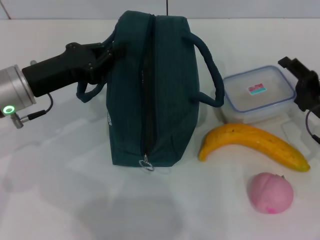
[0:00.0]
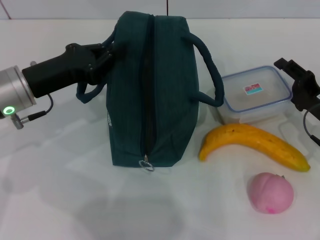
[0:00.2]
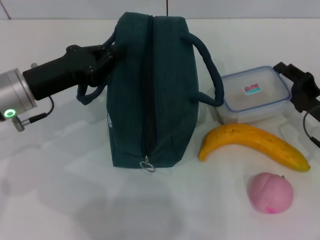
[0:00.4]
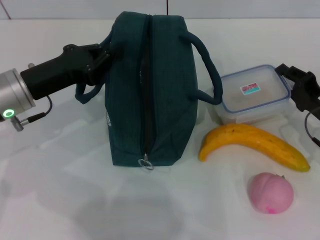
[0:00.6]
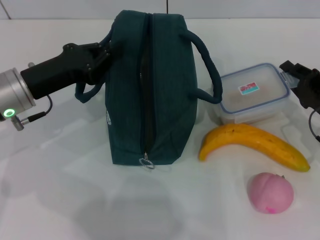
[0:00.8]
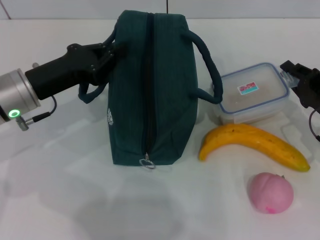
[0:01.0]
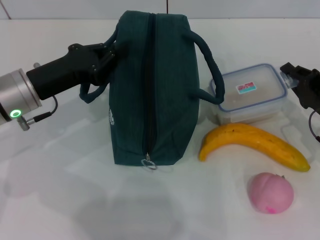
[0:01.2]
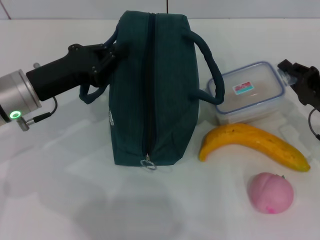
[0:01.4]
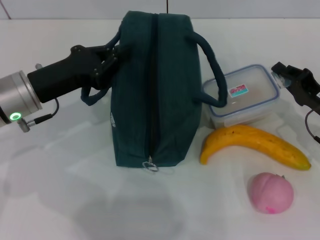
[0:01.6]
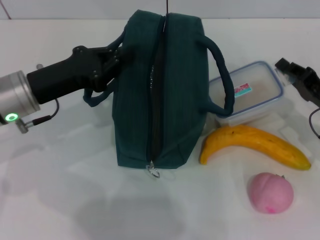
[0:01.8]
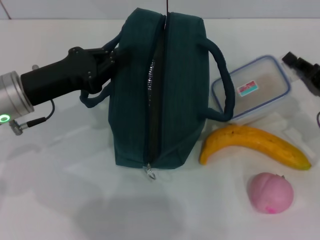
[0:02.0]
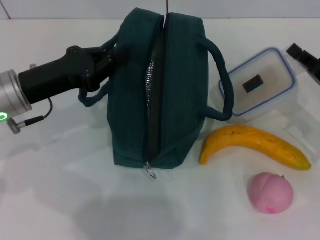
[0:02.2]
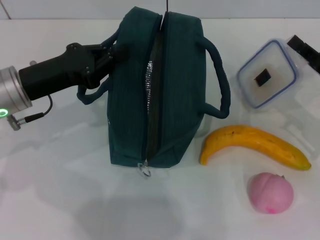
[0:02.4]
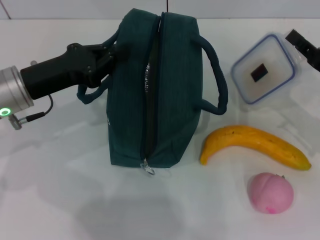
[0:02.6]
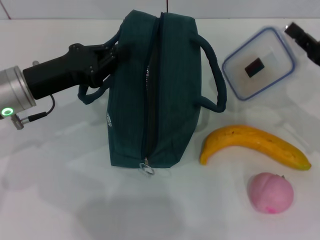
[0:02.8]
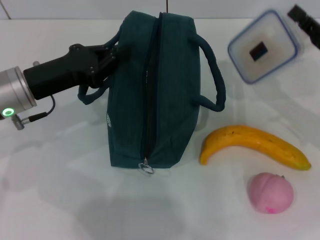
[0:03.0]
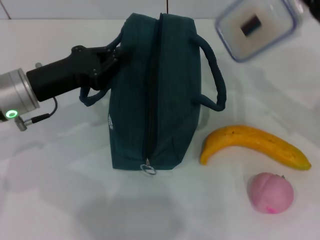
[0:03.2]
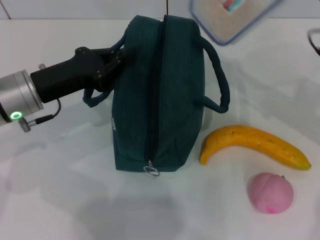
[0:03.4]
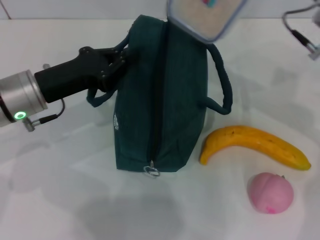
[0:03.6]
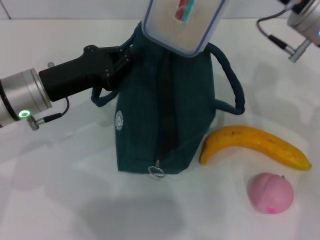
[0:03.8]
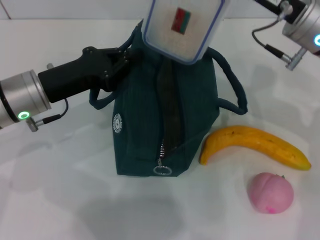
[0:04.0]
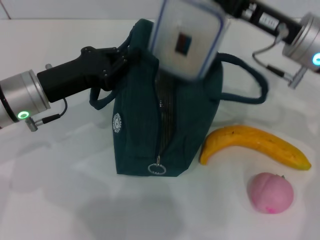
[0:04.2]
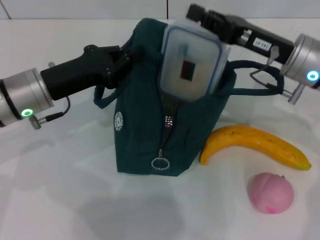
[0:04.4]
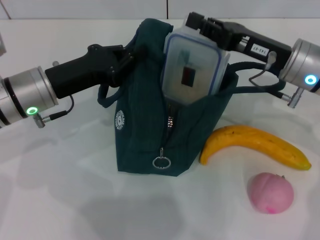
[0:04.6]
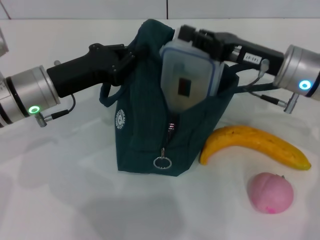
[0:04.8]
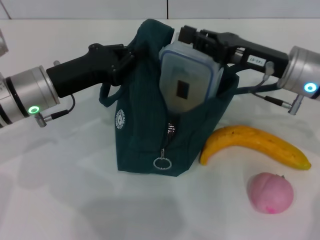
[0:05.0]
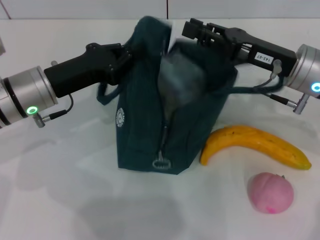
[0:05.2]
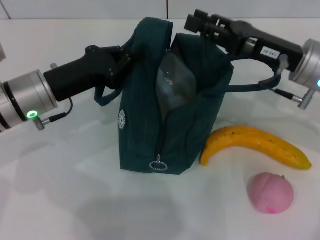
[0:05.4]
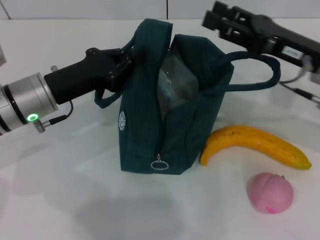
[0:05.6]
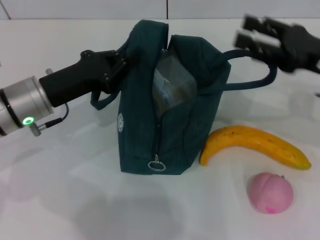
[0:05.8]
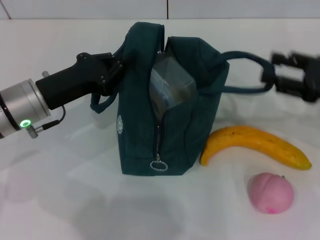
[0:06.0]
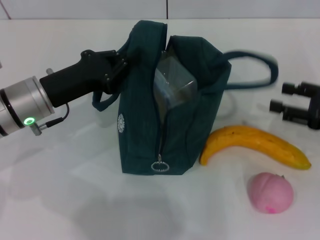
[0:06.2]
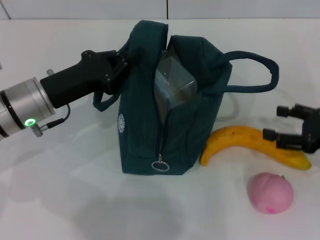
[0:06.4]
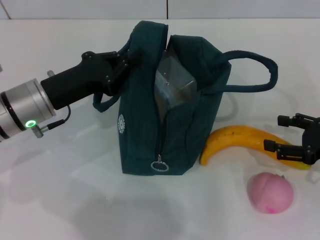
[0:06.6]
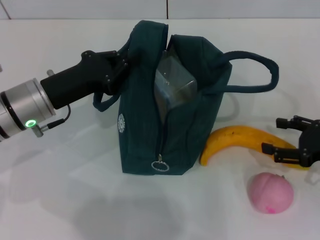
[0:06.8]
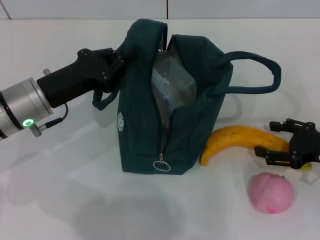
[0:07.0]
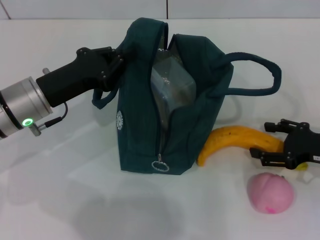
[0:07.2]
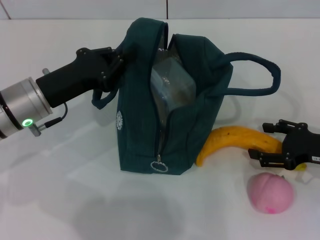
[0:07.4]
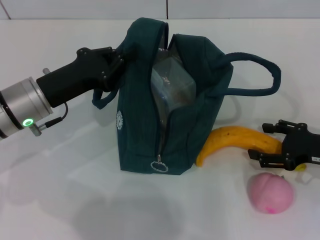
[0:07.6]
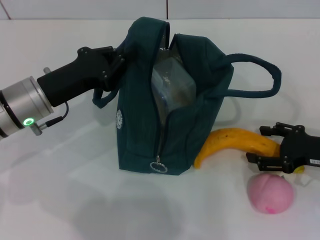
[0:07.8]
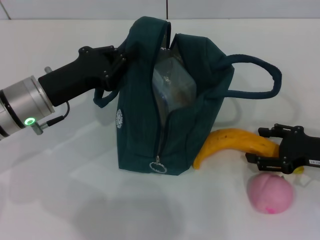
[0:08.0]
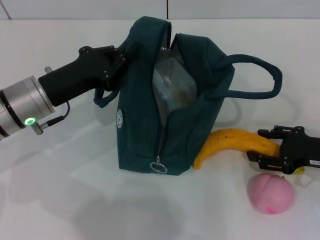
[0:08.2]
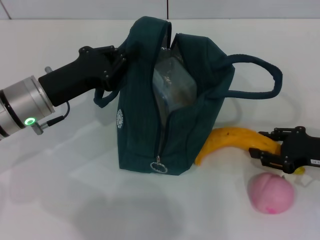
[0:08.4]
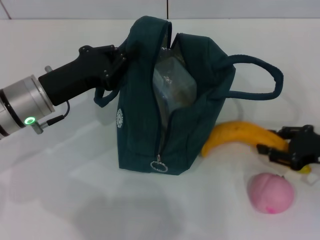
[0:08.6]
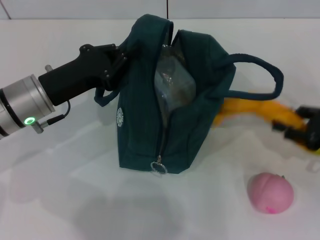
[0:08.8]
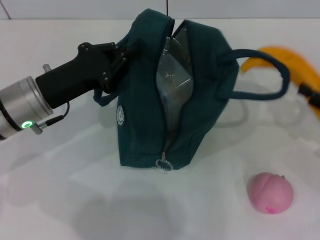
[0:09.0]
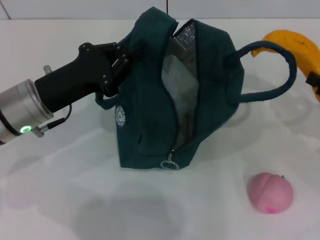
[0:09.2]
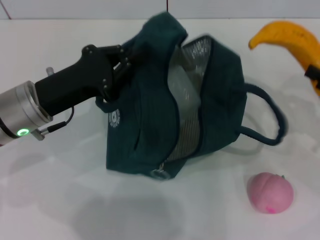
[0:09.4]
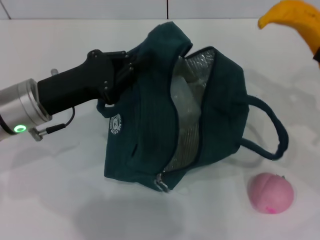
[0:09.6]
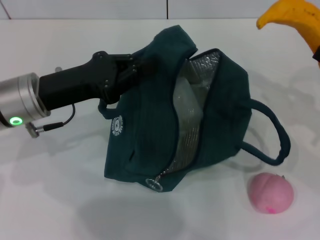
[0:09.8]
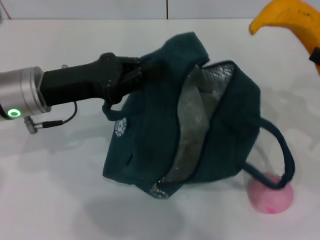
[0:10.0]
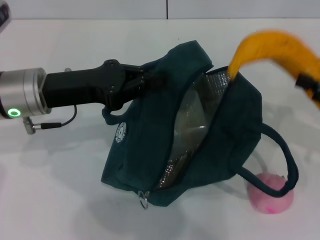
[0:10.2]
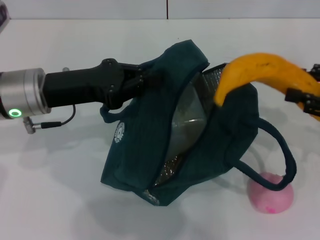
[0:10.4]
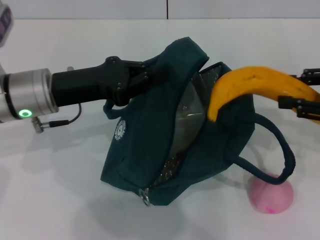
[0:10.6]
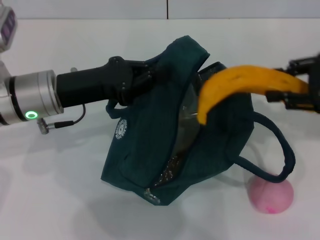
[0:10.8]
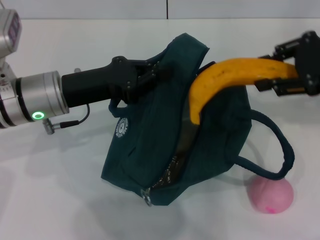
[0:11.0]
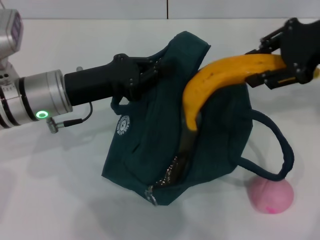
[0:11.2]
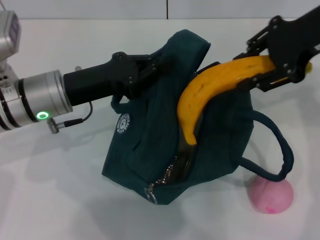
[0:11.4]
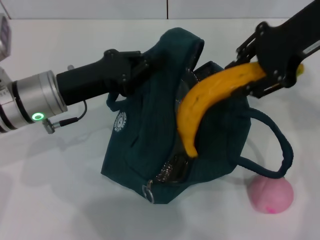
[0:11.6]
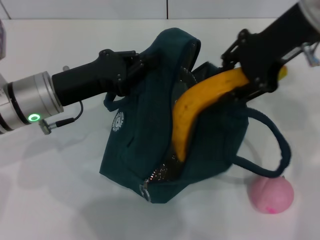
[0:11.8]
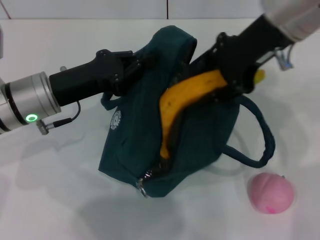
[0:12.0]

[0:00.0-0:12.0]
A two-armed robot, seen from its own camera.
Step, 0:00.0 to 0:02.0: Pick up the lunch box with your right hand.
Step, 0:02.2 to 0:05.2: Place the lunch box into the lunch bag with your right hand.
Step, 0:05.4 to 0:08.4: Take the banana with your right hand.
0:00.0 to 0:01.6: The right gripper closes up.
0:01.6 to 0:03.0: The right gripper goes roughly 5 cm upward.
0:03.0 to 0:04.4: The right gripper goes some 10 cm to the left.
0:04.4 to 0:06.0: The right gripper goes approximately 10 cm to the right, and opens its fingers.
0:06.0 to 0:07.6: The right gripper goes roughly 10 cm downward.
0:07.6 to 0:09.0: The right gripper is displaced to the right by approximately 5 cm, and closes.
0:09.0 to 0:10.4: The right gripper is displaced upward by roughly 5 cm.
0:10.4 to 0:12.0: The right gripper goes approximately 25 cm to the left, upward and forward.

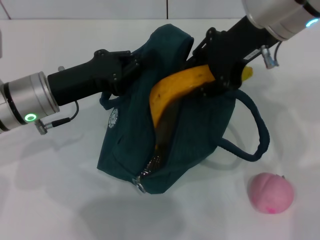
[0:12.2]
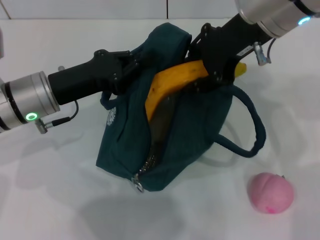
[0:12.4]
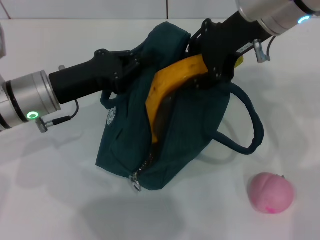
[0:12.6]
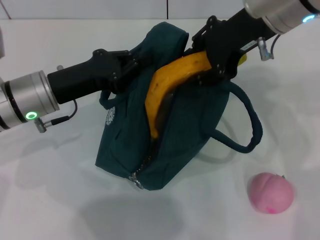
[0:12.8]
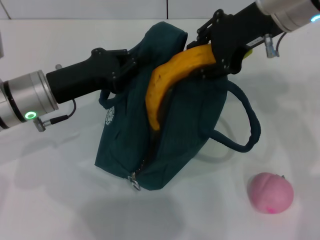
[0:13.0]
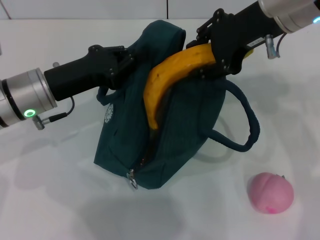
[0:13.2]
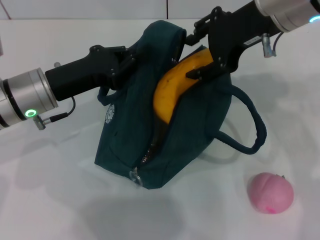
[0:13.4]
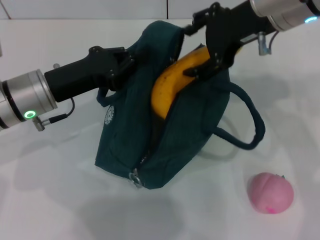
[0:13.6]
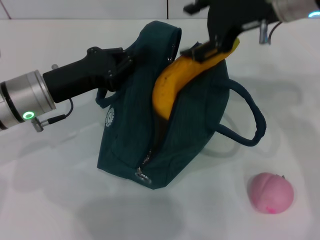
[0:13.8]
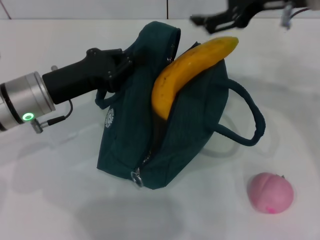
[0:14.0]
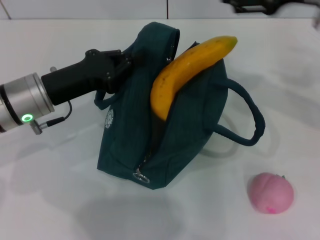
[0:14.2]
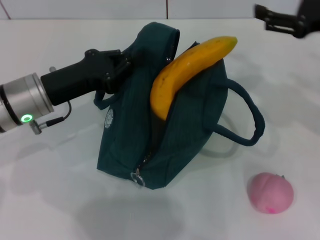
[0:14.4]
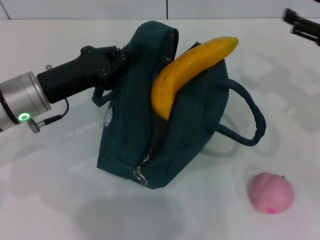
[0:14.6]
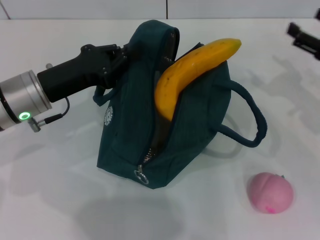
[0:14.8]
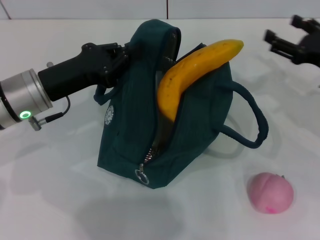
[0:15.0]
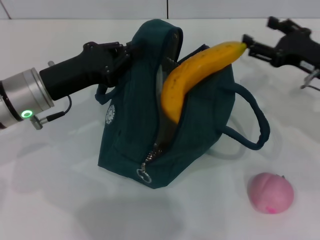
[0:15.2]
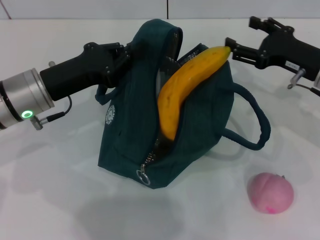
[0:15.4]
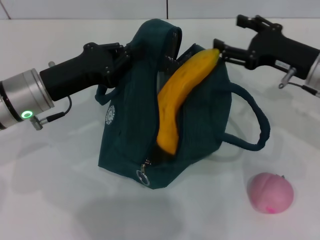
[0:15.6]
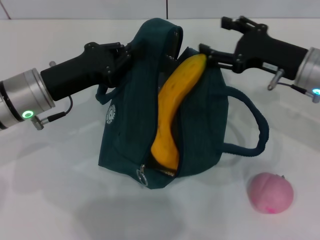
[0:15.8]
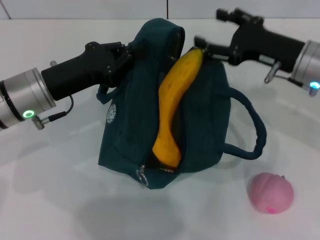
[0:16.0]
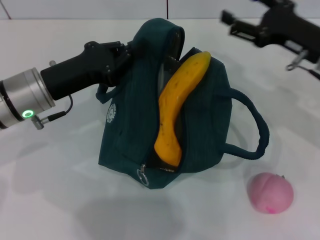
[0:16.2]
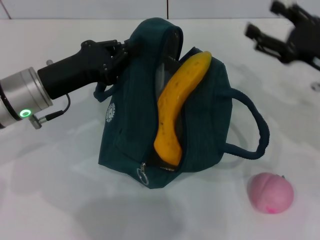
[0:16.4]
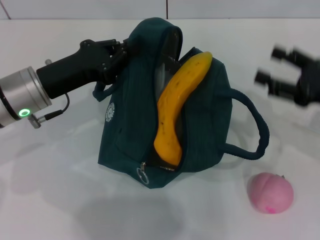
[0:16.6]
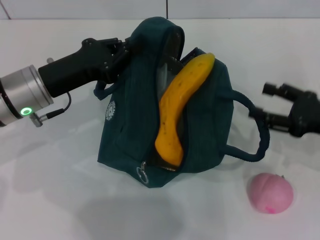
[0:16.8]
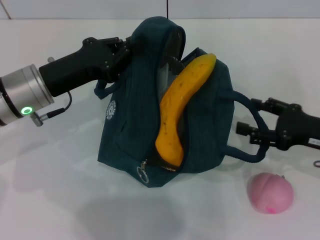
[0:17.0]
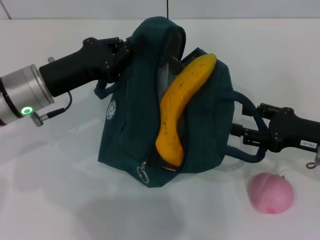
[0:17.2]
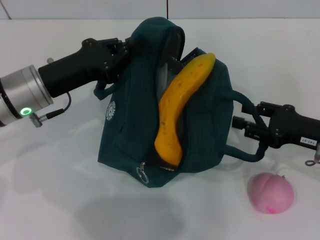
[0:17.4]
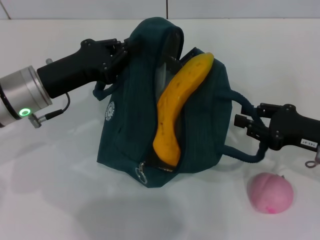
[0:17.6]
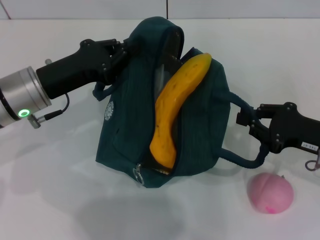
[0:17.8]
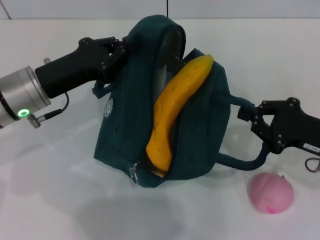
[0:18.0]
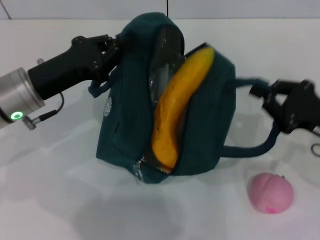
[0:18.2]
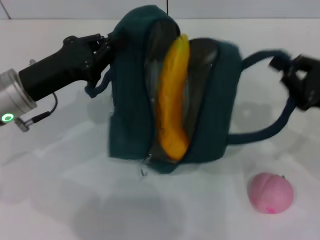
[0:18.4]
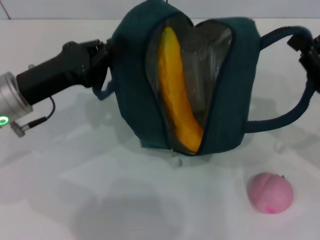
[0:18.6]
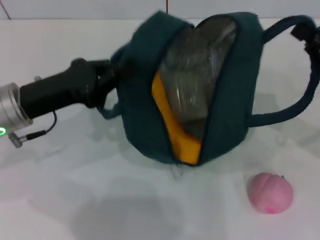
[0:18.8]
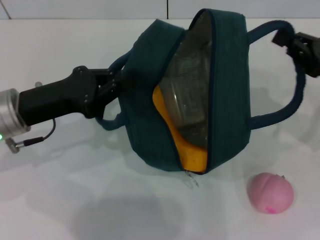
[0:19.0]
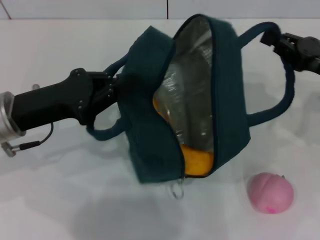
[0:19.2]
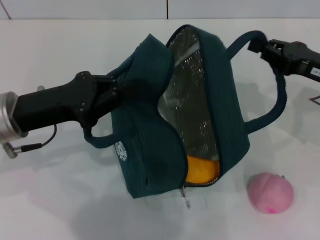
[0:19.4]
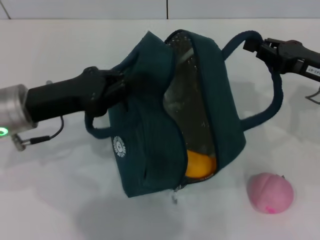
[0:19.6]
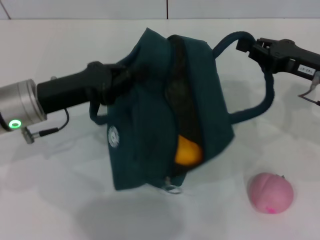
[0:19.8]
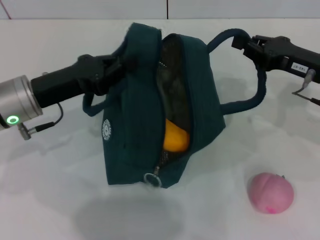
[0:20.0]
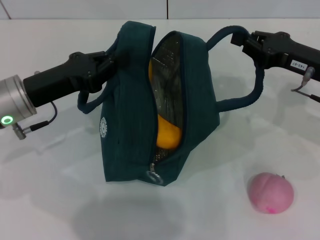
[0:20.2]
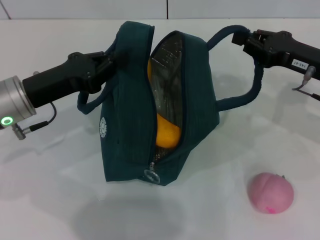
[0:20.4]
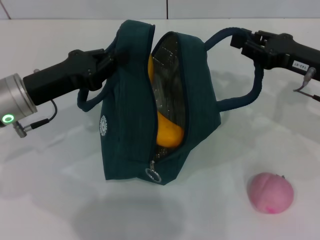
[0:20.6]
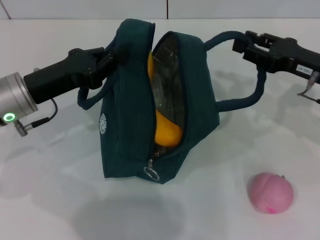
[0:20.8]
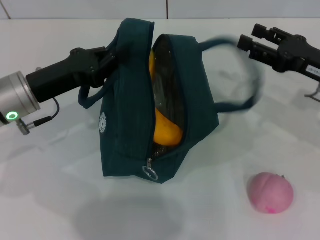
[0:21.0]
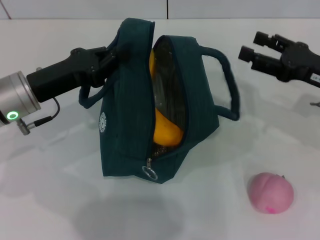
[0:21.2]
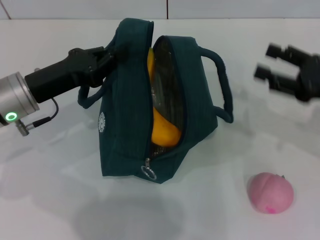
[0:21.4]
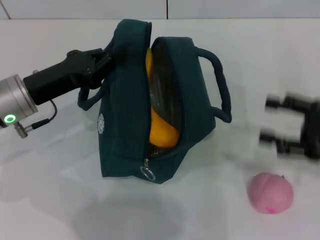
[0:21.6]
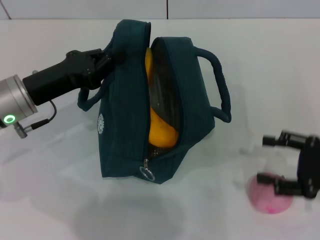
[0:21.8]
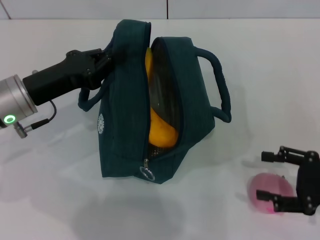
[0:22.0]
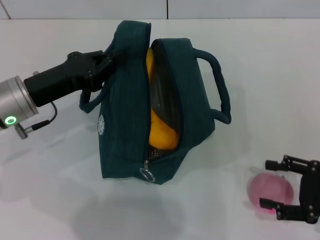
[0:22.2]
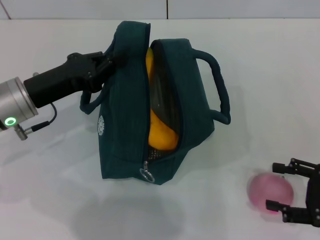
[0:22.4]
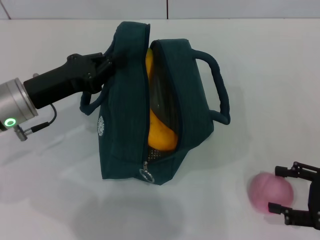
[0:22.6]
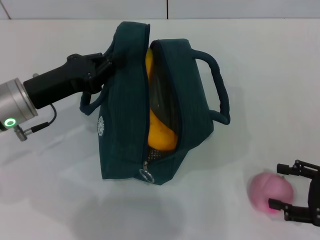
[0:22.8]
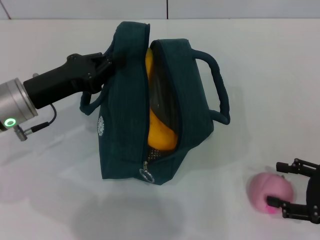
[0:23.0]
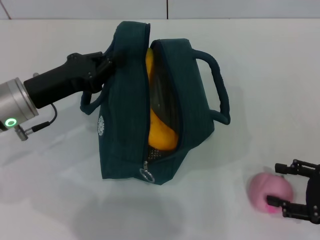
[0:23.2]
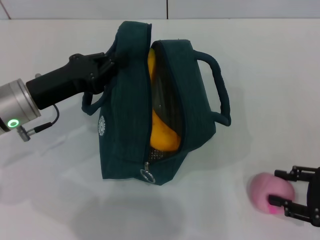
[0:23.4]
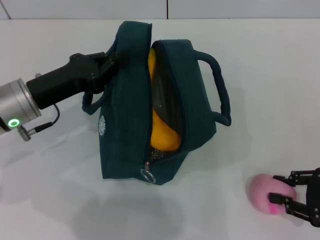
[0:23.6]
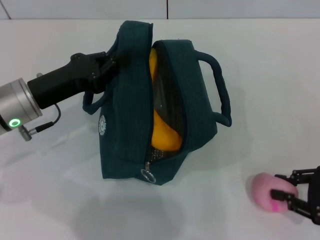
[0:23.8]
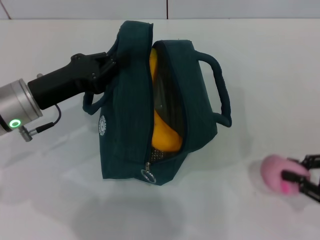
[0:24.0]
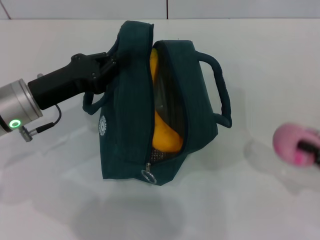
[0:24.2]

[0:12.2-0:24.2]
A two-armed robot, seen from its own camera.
Step, 0:13.8 to 0:23.6: Grab the peach with your right hand.
0:12.2 to 0:13.8: The right gripper opens.
0:13.8 to 0:15.2: The right gripper shifts some 20 cm downward and to the right.
0:15.2 to 0:16.6: The right gripper goes approximately 5 cm backward, and goes to the left and returns, some 5 cm each way.
0:16.6 to 0:18.2: The right gripper closes.
0:18.2 to 0:19.8: The right gripper goes roughly 10 cm forward.
0:19.8 to 0:21.2: The right gripper opens up.
0:21.2 to 0:22.6: The right gripper heads backward, downward and to the right, covering approximately 15 cm.
0:22.6 to 0:24.2: The right gripper closes its fingers.
